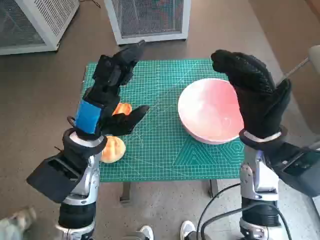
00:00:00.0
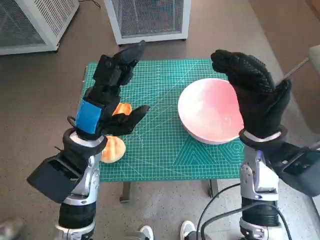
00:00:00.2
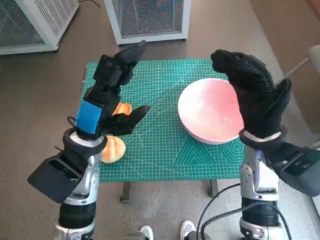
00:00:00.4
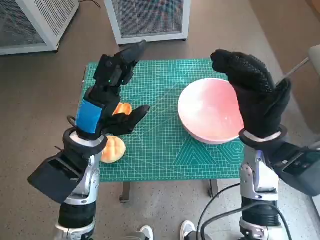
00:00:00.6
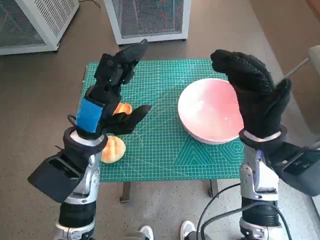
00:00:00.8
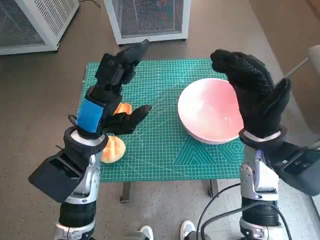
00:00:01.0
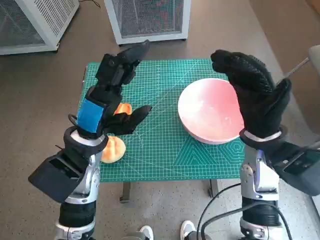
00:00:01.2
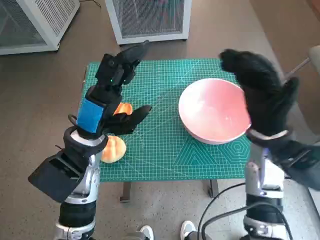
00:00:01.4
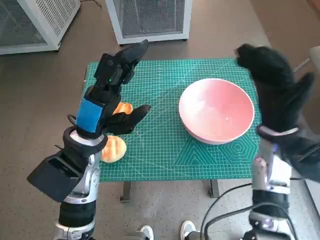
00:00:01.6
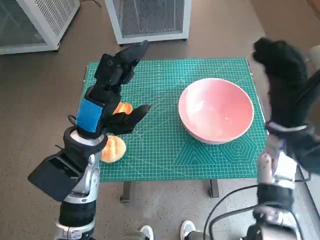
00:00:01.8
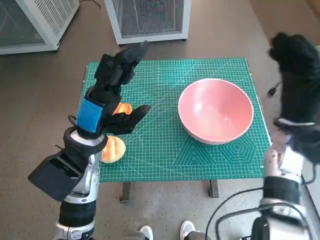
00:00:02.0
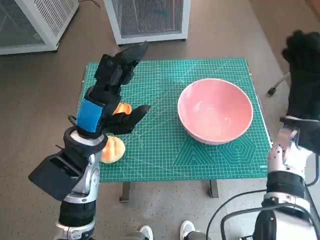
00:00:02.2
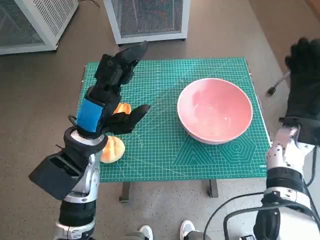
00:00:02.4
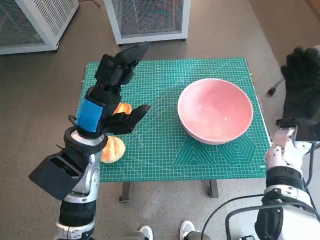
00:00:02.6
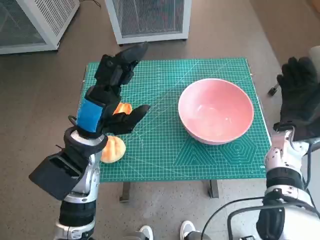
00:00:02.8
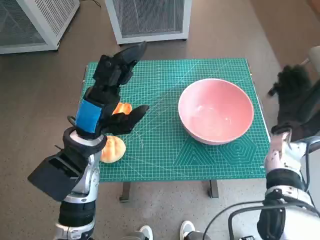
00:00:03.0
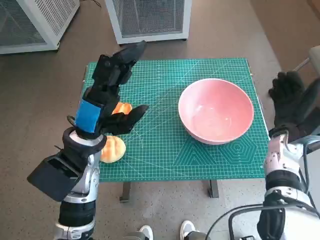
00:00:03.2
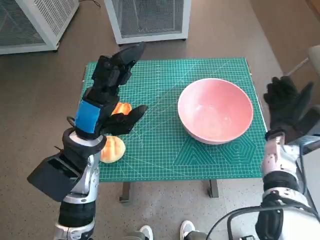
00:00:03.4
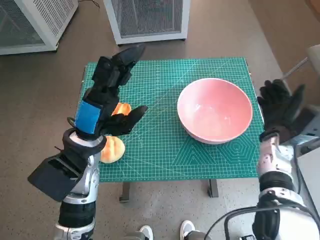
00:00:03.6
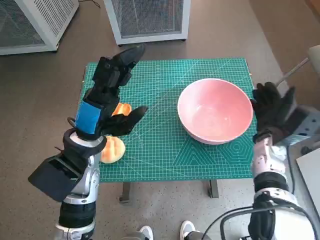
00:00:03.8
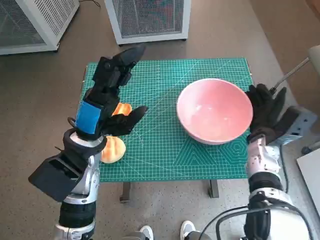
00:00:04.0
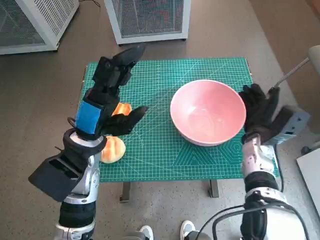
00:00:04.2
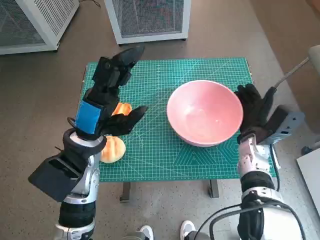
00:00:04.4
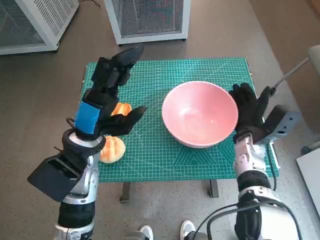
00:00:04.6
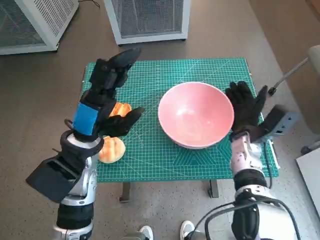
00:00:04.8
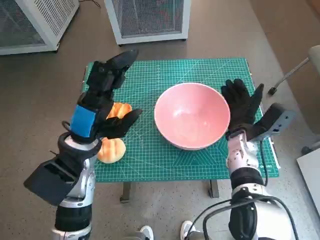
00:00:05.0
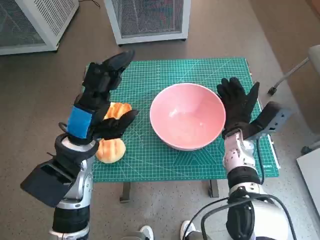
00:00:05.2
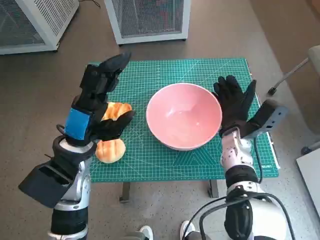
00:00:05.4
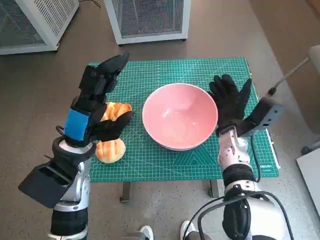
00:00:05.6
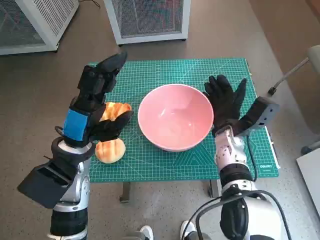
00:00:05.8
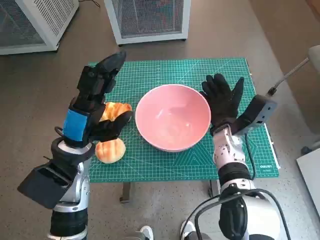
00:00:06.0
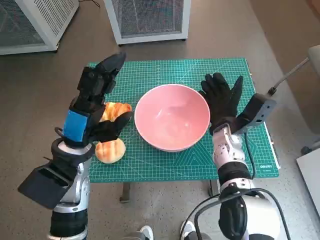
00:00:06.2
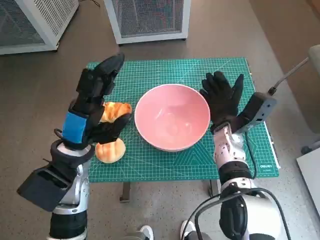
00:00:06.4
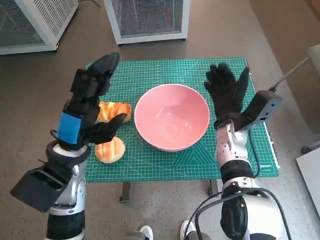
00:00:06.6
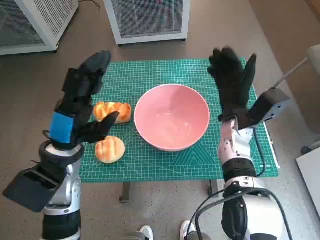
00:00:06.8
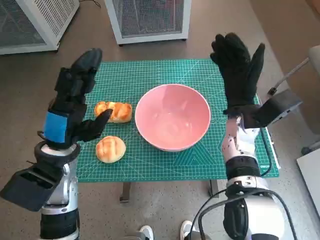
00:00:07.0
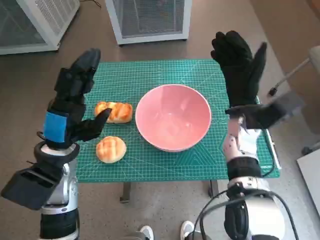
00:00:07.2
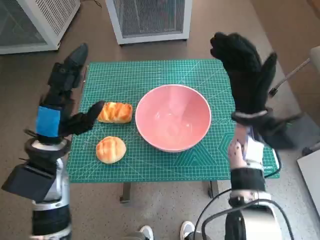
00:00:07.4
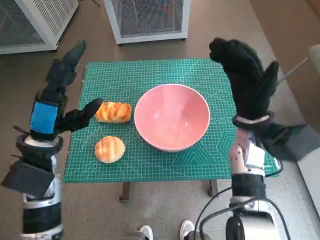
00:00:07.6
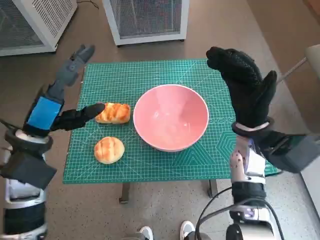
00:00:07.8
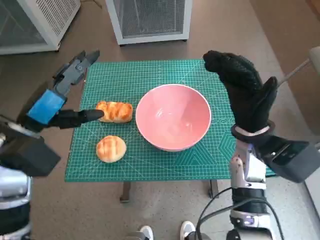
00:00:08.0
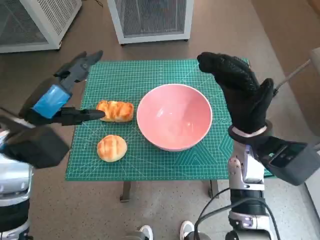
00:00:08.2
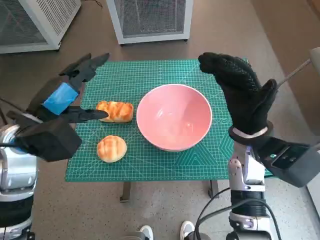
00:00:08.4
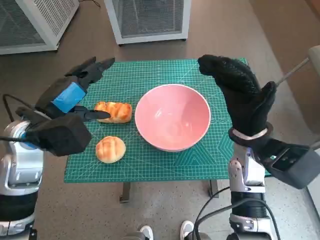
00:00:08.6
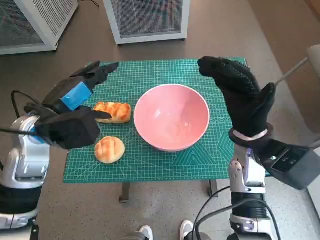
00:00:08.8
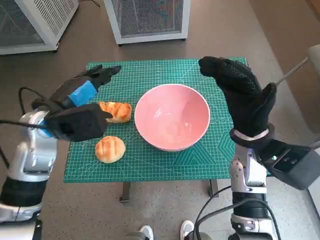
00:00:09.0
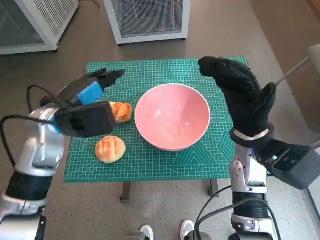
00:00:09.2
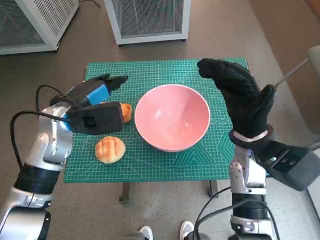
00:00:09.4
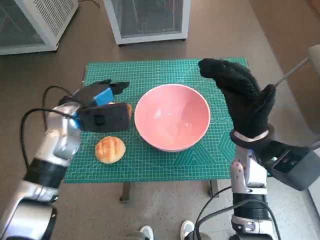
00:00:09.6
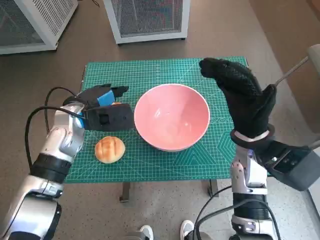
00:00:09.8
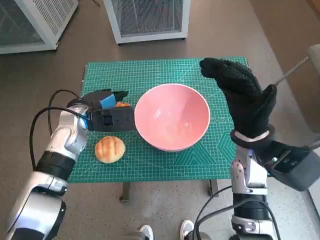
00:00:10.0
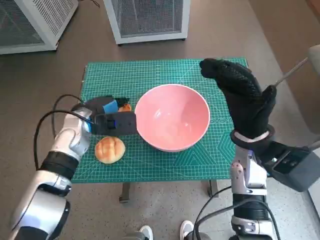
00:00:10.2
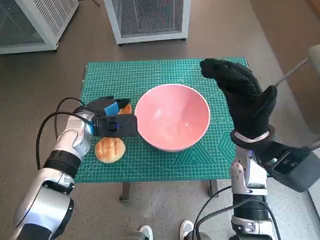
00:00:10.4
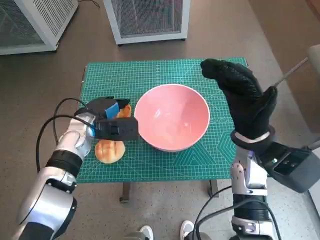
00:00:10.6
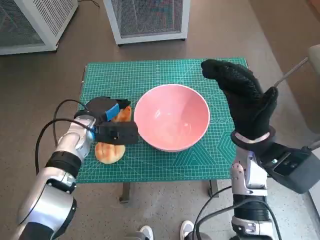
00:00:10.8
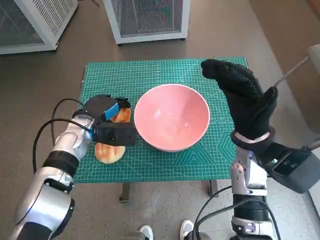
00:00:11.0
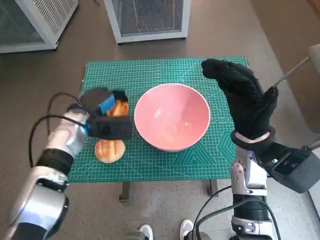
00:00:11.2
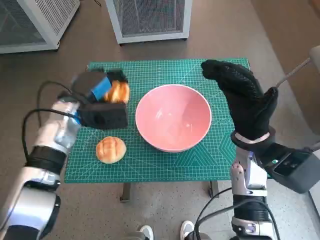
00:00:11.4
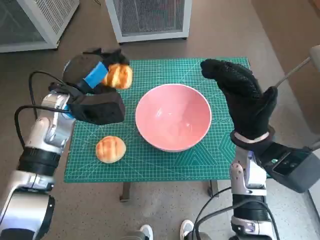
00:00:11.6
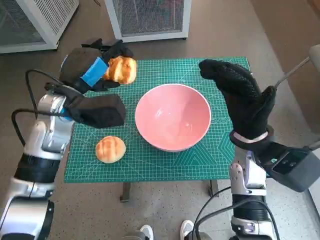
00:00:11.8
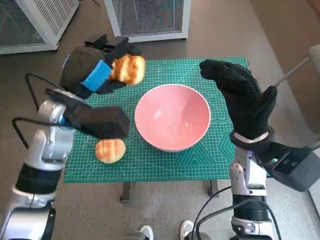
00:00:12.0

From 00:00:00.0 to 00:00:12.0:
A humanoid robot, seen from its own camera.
Task of the whole recording: Push the bowl into the center of the table and put the bread into the bowl.
Step, from 00:00:00.0 to 00:00:06.6: Move the pink bowl to the center of table with right hand.
Step, from 00:00:06.8 to 00:00:10.8: Grasp the long bread with left hand.
From 00:00:01.6 to 00:00:03.0: The right hand goes some 10 cm downward and to the right.
From 00:00:03.0 to 00:00:04.4: The right hand goes about 5 cm to the left.
From 00:00:04.4 to 00:00:06.0: The right hand moves to the left, approximately 5 cm.
From 00:00:06.0 to 00:00:07.6: The left hand changes place by some 5 cm. The right hand travels upward by roughly 5 cm.
From 00:00:07.6 to 00:00:09.0: The left hand ends up about 5 cm from where it was.
From 00:00:09.0 to 00:00:10.4: The left hand shifts some 10 cm downward and forward.
From 00:00:10.4 to 00:00:12.0: The left hand shifts some 10 cm upward.

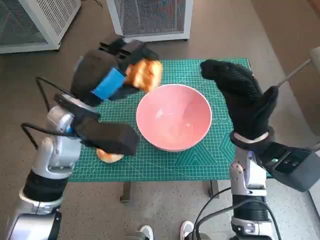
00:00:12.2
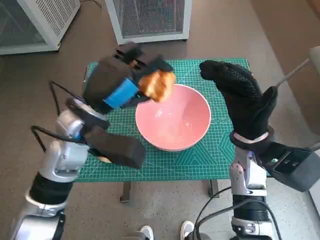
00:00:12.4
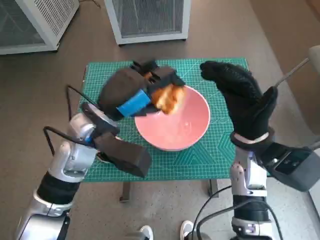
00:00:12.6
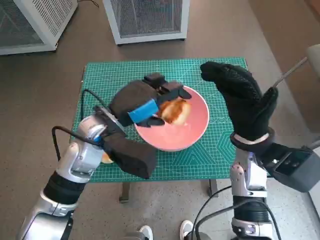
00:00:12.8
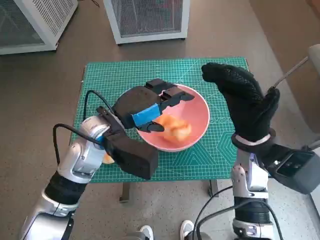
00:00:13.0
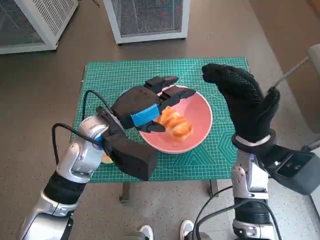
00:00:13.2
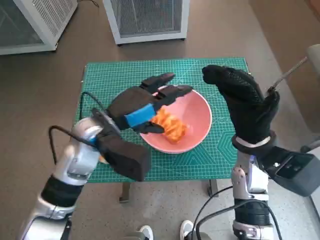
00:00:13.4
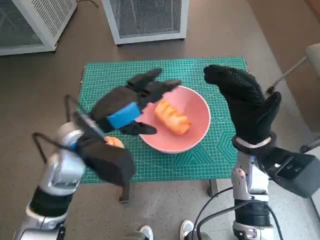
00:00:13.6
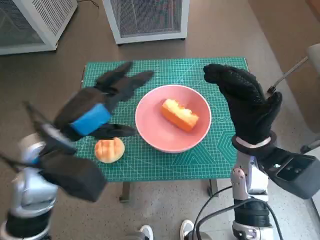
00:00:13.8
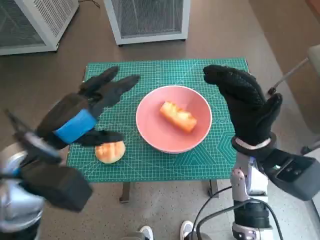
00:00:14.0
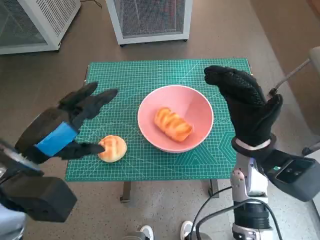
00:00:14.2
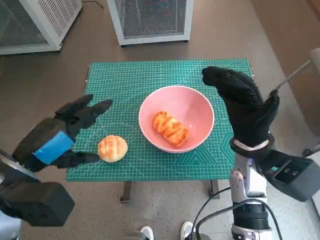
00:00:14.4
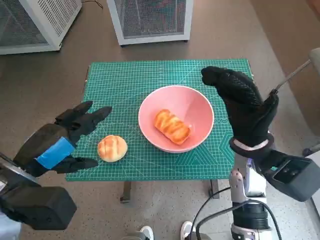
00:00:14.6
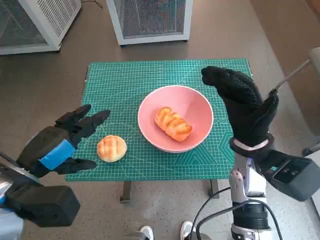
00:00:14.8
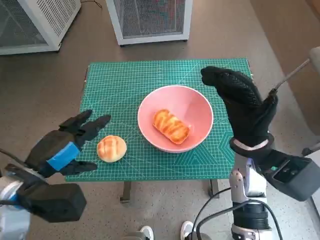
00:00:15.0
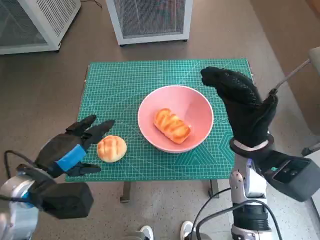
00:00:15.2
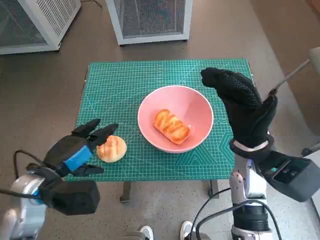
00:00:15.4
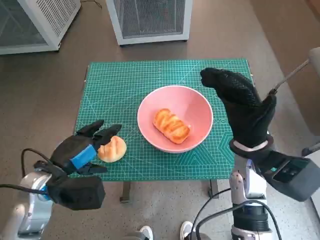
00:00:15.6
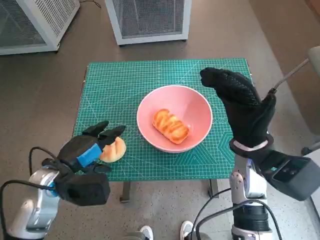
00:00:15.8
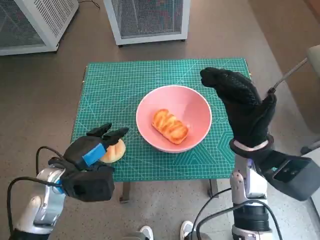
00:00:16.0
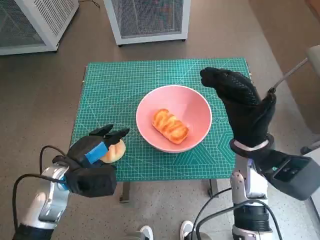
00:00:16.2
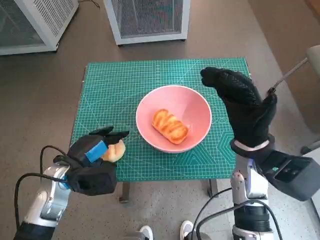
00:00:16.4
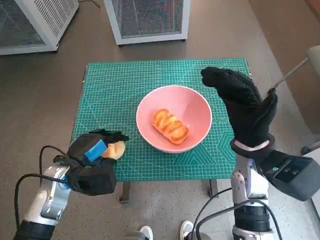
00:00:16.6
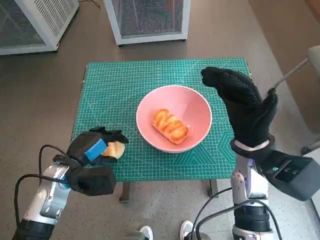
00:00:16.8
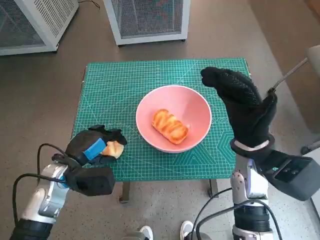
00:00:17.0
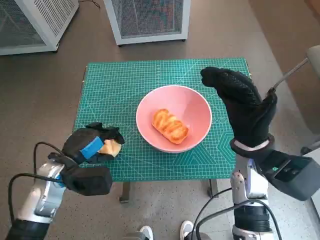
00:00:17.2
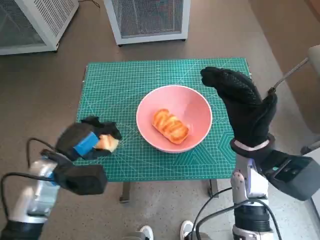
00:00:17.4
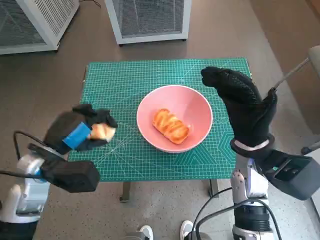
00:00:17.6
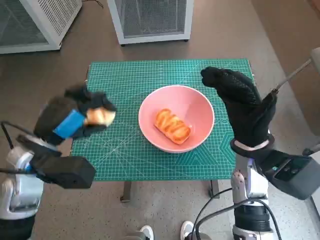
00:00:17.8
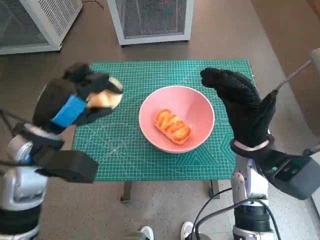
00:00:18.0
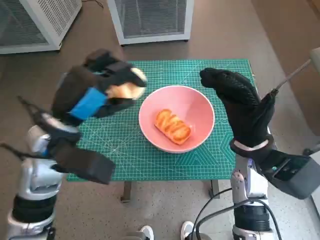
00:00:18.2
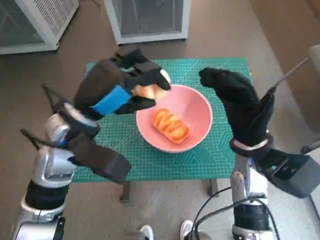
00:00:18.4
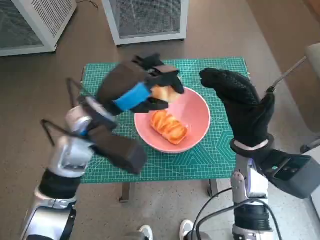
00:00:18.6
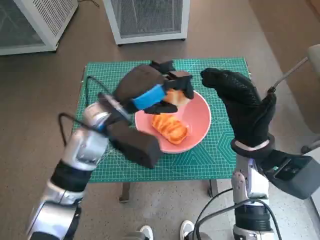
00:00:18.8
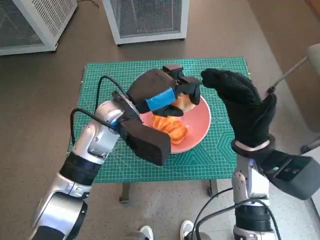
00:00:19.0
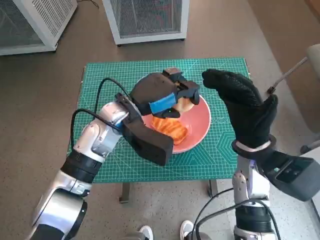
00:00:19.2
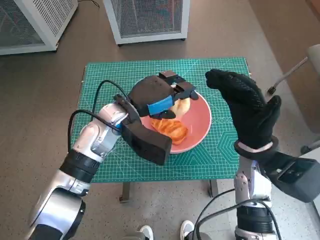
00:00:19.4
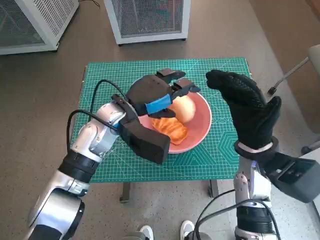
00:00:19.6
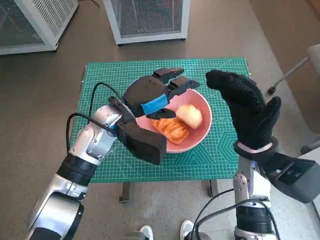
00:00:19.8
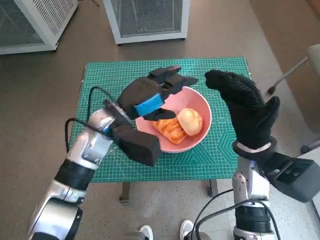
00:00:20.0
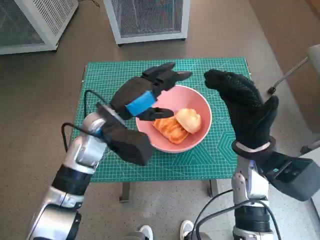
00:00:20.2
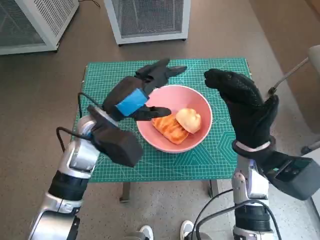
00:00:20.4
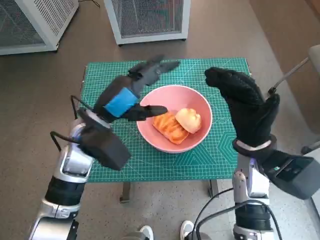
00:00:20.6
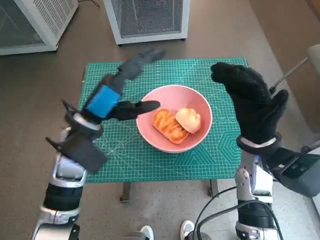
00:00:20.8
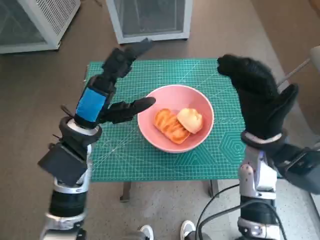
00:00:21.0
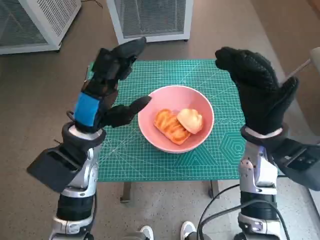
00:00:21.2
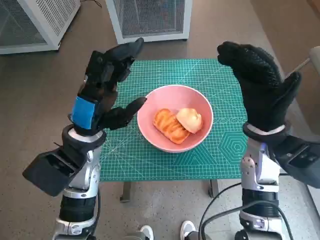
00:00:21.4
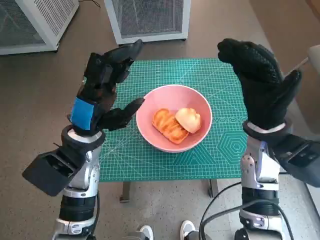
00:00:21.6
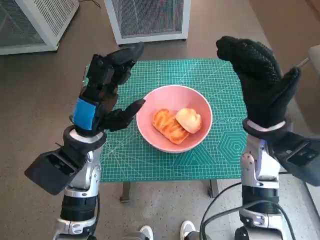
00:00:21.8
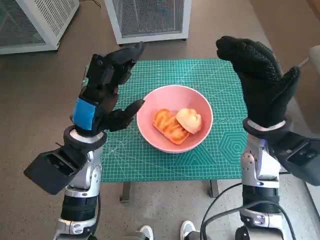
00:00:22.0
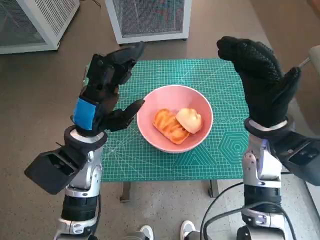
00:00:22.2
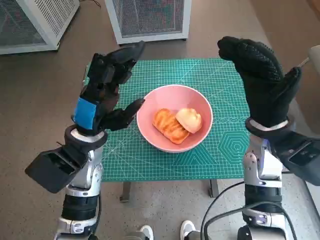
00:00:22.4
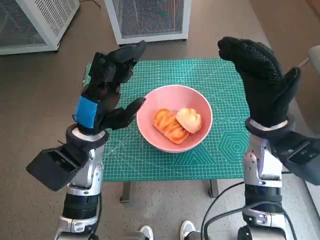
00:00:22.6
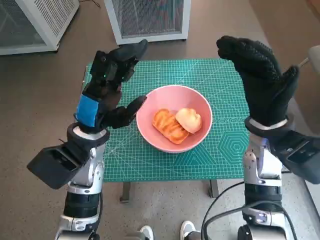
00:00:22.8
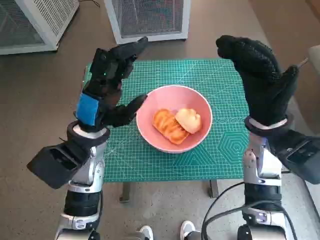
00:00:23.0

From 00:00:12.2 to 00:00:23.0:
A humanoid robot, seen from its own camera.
Task of the whole recording: Push the bowl into the center of the table and put the bread into the bowl.
Step, from 00:00:13.2 to 00:00:16.8: Grasp the round bread with left hand.
Step, from 00:00:17.0 to 00:00:19.4: Place the round bread in pink bowl with left hand.
From 00:00:13.8 to 00:00:15.2: The left hand moves to the left, downward and backward, about 10 cm.
From 00:00:15.2 to 00:00:16.8: The left hand moves downward, roughly 5 cm.
From 00:00:16.8 to 00:00:18.4: The left hand is displaced upward and to the right by roughly 15 cm.
From 00:00:18.4 to 00:00:20.0: The left hand shifts about 10 cm downward and forward.
From 00:00:20.0 to 00:00:21.4: The left hand is displaced backward by roughly 5 cm.
From 00:00:21.4 to 00:00:23.0: Both hands stay about where they are.
